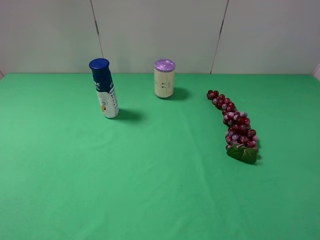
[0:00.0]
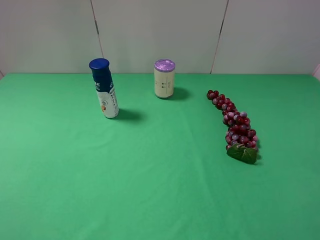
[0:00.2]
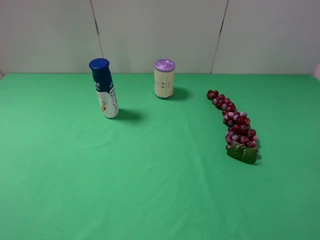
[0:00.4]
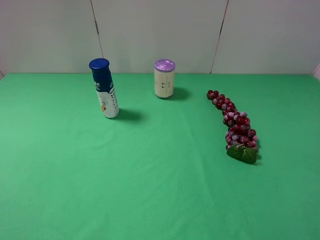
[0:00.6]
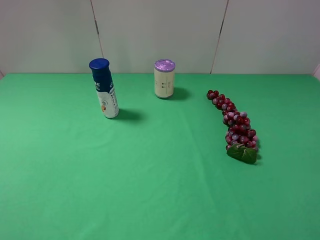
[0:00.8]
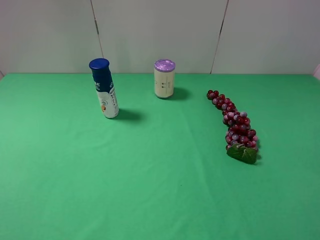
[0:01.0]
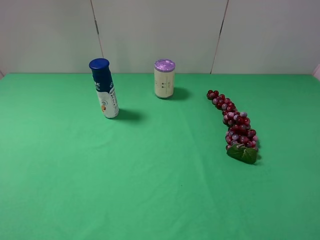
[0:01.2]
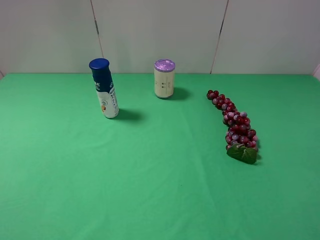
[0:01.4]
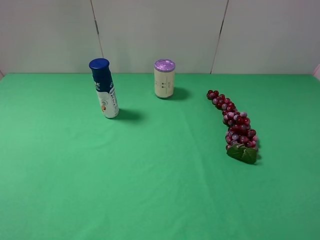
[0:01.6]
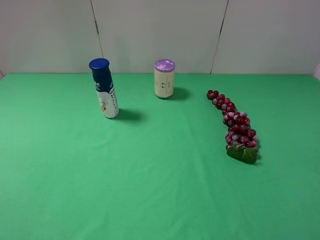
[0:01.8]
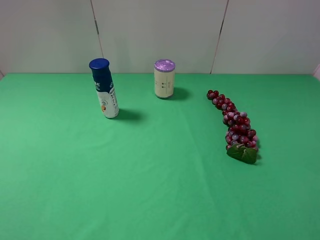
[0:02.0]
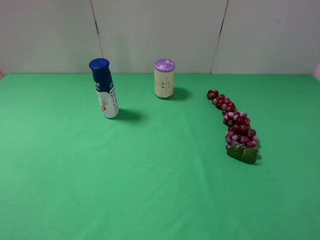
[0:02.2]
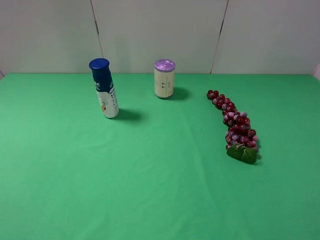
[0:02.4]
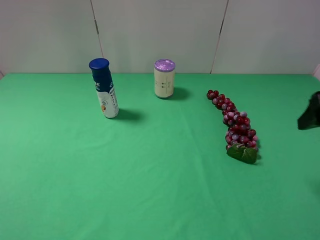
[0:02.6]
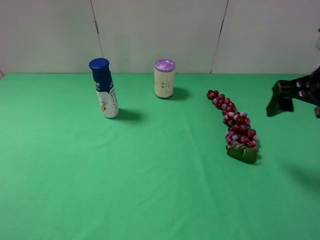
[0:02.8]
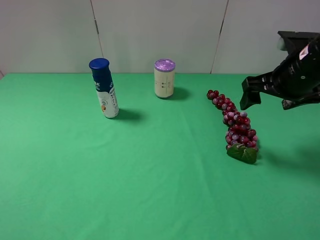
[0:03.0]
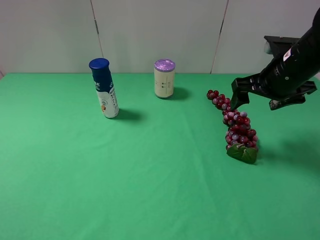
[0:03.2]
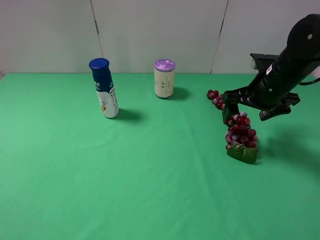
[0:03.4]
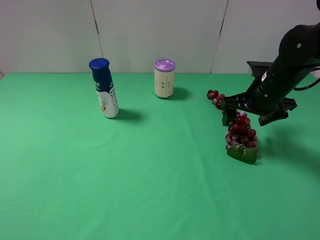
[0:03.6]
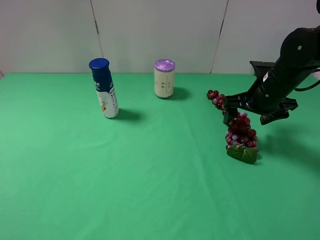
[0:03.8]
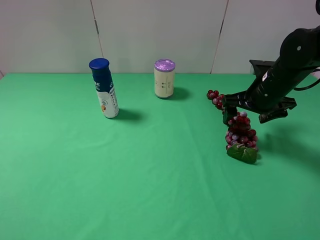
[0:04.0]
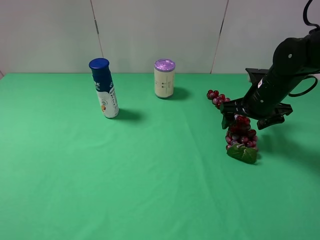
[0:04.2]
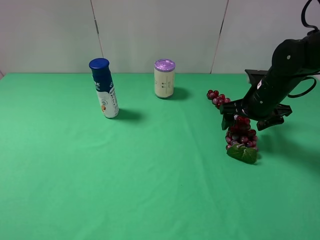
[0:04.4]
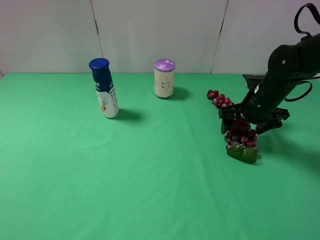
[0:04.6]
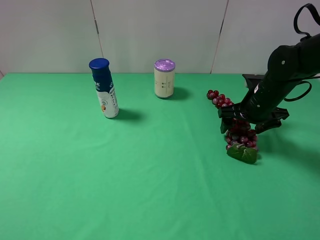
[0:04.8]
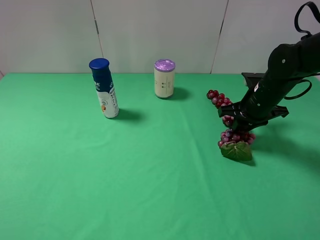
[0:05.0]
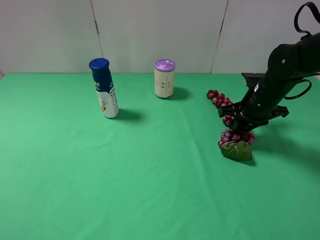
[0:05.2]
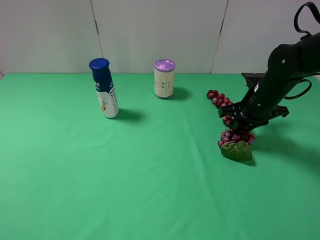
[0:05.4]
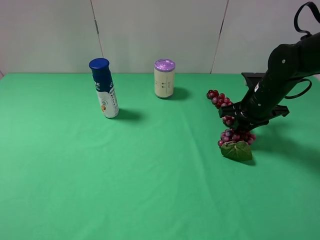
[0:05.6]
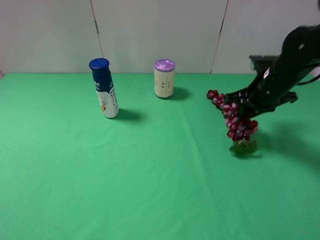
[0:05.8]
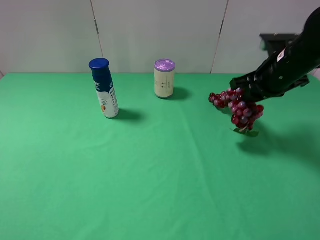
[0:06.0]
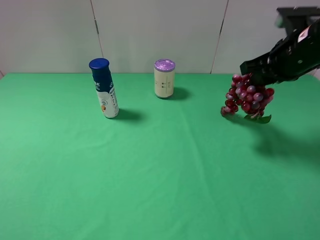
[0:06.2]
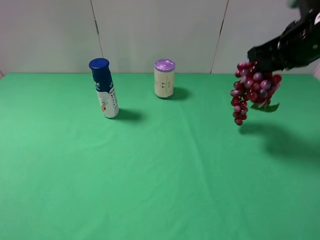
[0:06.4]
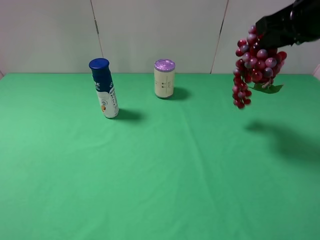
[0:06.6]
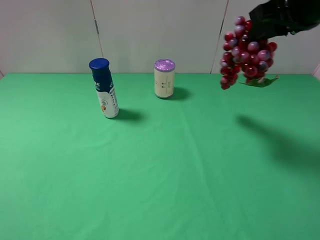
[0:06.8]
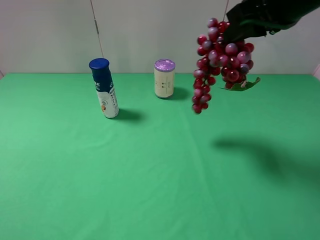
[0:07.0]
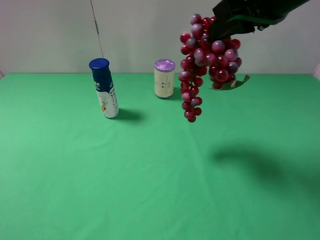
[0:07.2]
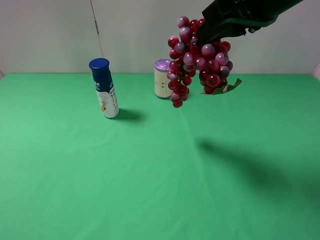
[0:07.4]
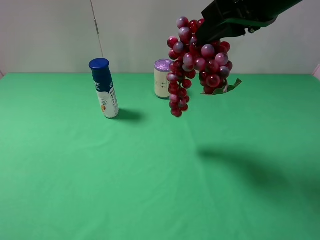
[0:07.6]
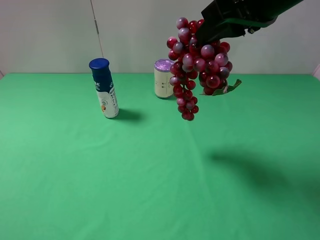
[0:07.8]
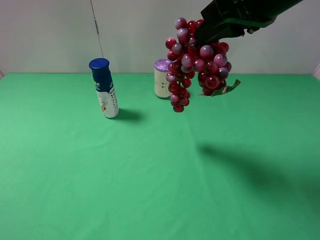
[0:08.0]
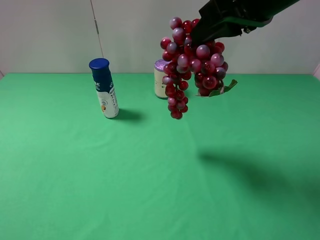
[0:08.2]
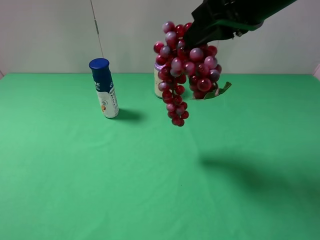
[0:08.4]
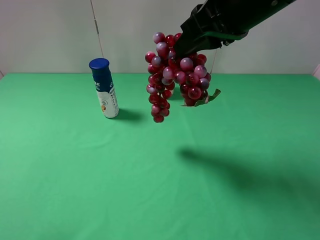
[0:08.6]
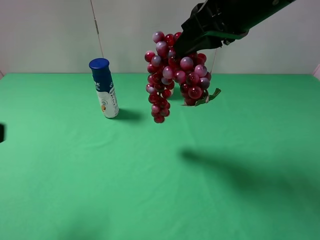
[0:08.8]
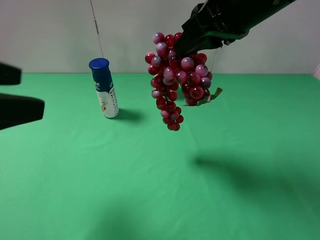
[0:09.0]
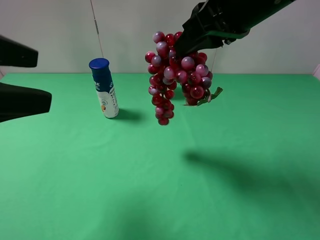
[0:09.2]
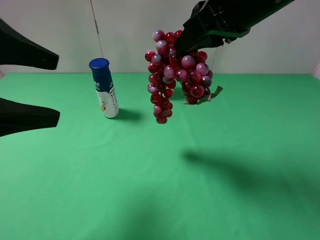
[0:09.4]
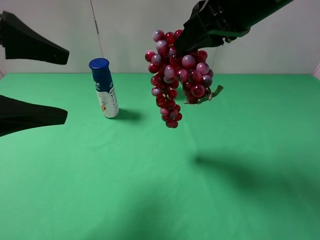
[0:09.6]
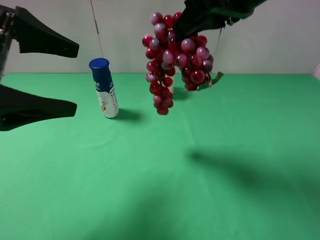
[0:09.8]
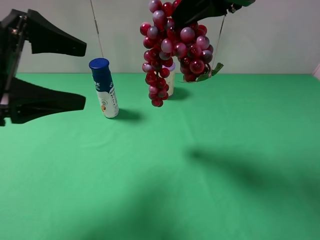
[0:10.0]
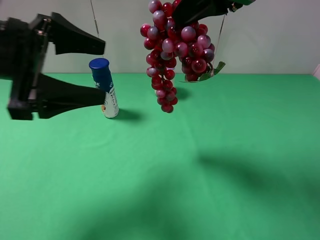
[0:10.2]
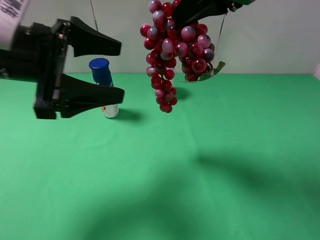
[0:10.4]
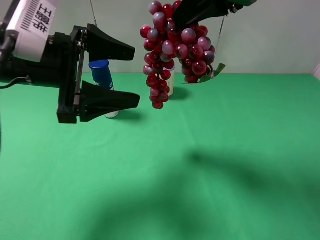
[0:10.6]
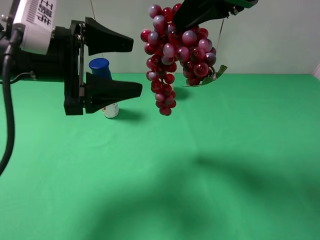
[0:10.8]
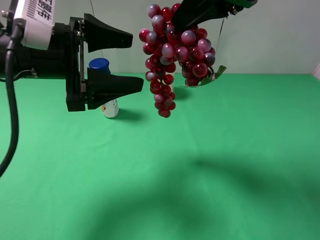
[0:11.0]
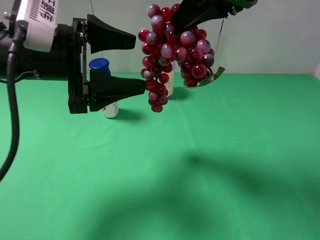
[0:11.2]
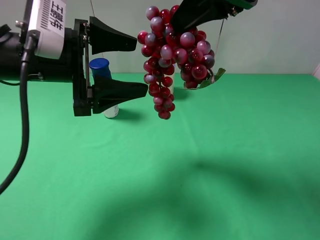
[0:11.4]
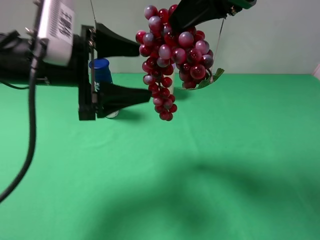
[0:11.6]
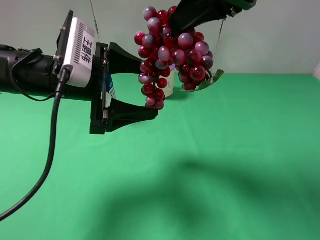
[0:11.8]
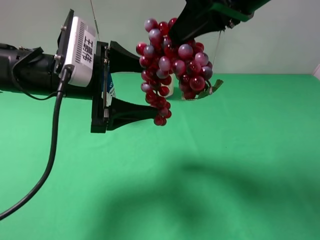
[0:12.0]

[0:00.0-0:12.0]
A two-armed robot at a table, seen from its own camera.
Task of the whole recording: use the right gripper to pick up the item and transfer it from the right gripper to the left gripper.
Step, 0:00.0 to 0:05.2: Use the right gripper to grab the grape on the right side of the table.
0:00.0 to 0:01.6: Both grippers stay put.
0:01.6 to 0:03.0: The right gripper is displaced forward by about 25 cm.
0:03.0 to 0:04.4: The right gripper heads downward, covering roughly 10 cm.
0:04.4 to 0:06.0: The right gripper shifts some 10 cm upward, and closes up.
0:06.0 to 0:07.6: The right gripper moves upward, to the left and backward, roughly 20 cm.
0:07.6 to 0:09.0: The left gripper heads forward and to the right, covering approximately 15 cm.
0:09.0 to 0:10.4: The left gripper goes approximately 15 cm forward, to the right and downward.
0:10.4 to 0:12.0: The left gripper changes place by about 5 cm.

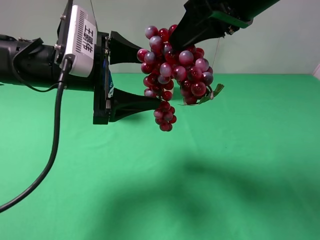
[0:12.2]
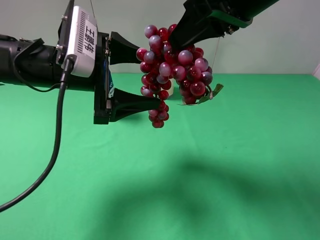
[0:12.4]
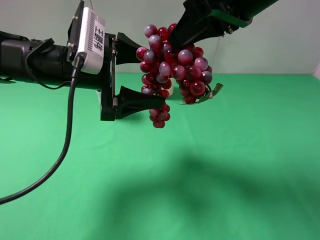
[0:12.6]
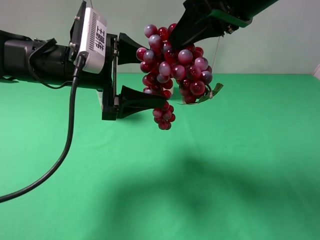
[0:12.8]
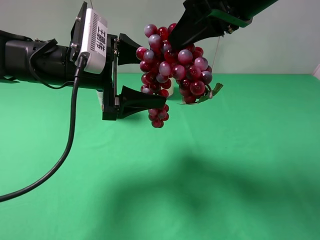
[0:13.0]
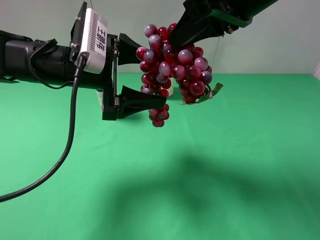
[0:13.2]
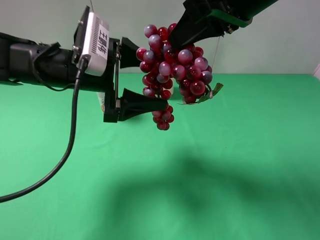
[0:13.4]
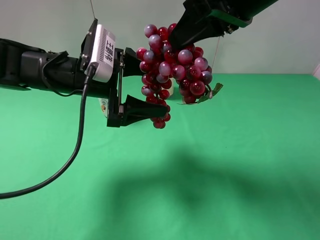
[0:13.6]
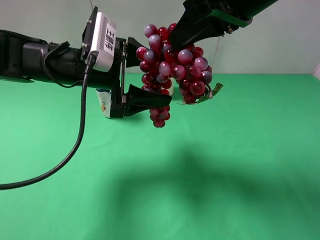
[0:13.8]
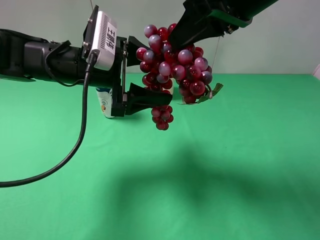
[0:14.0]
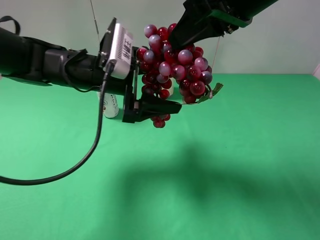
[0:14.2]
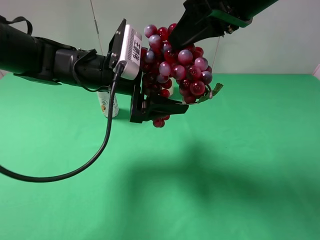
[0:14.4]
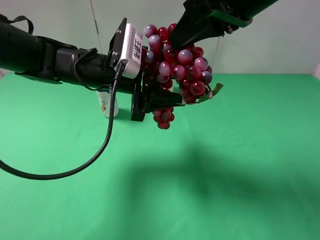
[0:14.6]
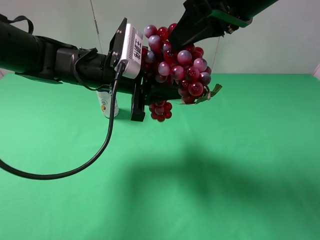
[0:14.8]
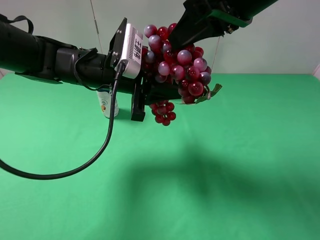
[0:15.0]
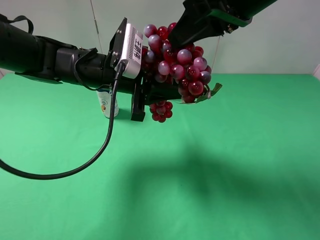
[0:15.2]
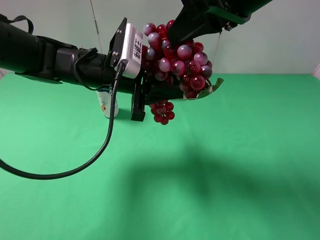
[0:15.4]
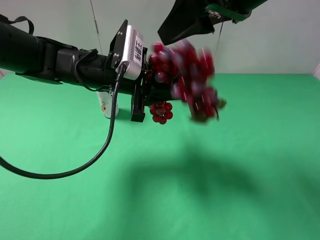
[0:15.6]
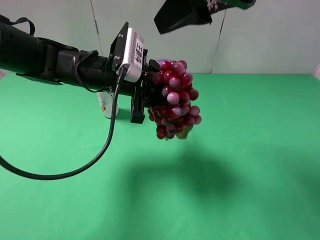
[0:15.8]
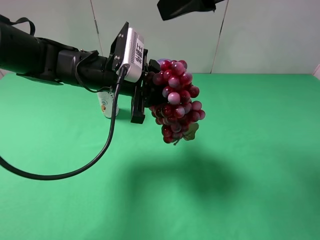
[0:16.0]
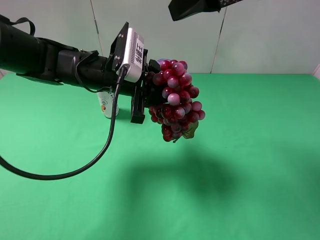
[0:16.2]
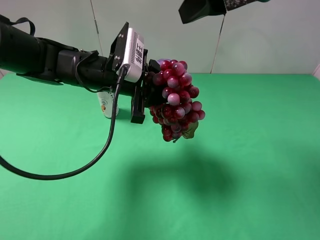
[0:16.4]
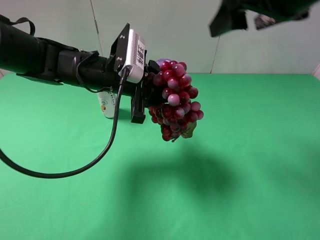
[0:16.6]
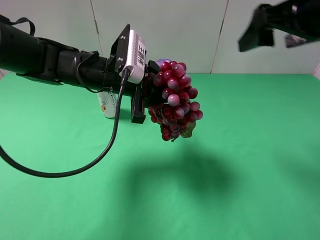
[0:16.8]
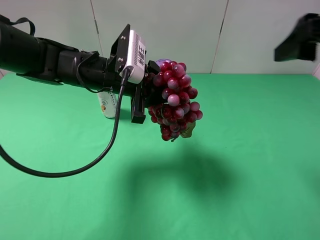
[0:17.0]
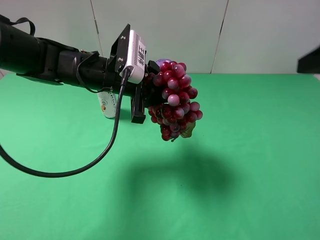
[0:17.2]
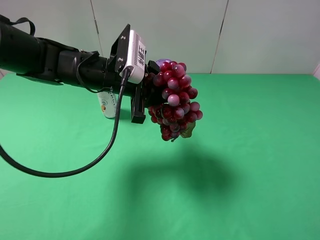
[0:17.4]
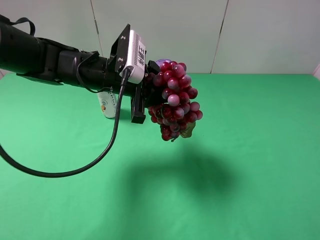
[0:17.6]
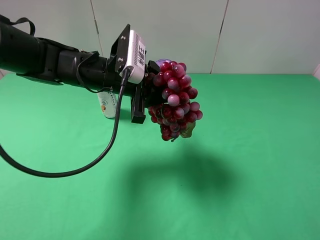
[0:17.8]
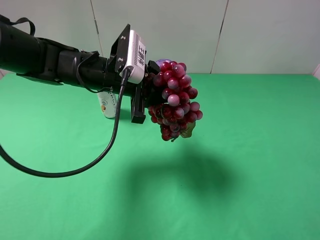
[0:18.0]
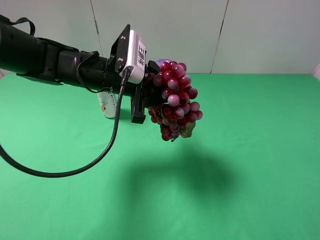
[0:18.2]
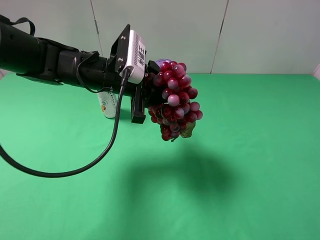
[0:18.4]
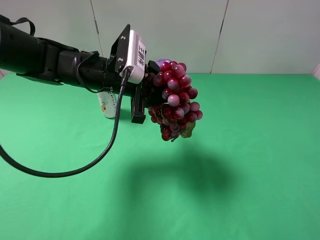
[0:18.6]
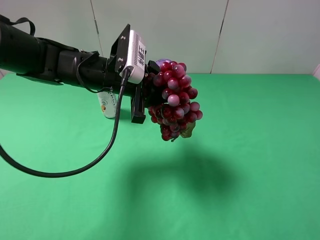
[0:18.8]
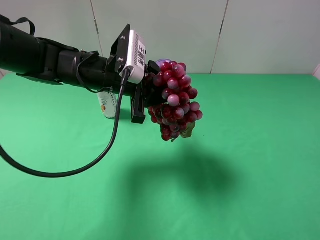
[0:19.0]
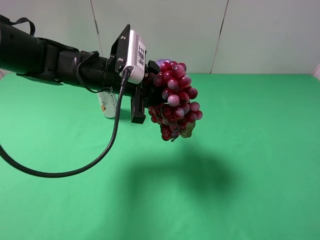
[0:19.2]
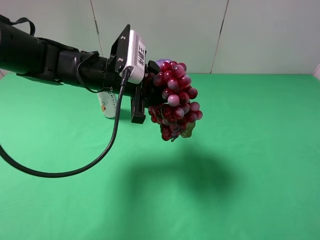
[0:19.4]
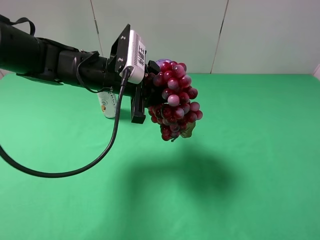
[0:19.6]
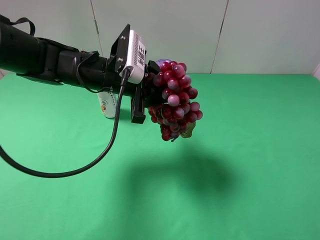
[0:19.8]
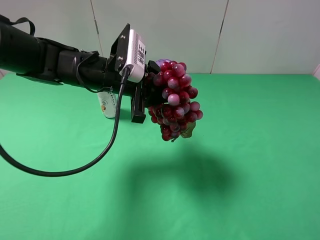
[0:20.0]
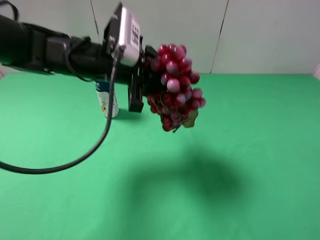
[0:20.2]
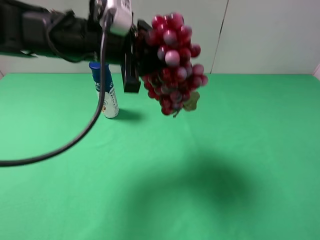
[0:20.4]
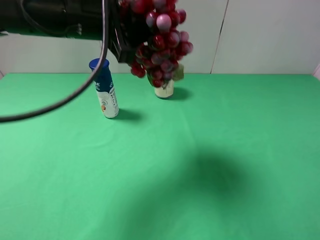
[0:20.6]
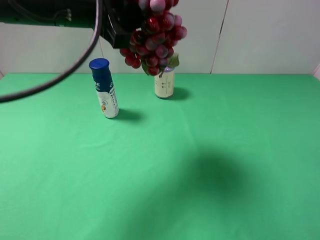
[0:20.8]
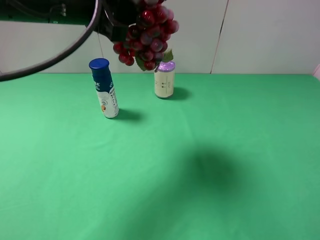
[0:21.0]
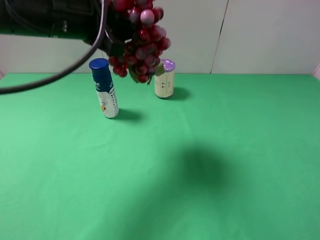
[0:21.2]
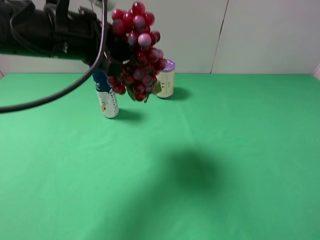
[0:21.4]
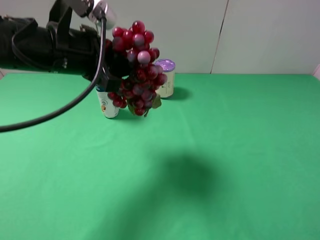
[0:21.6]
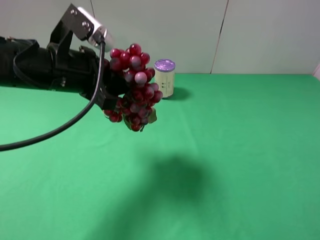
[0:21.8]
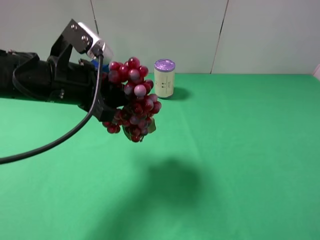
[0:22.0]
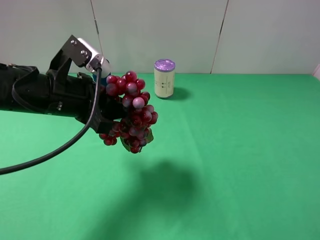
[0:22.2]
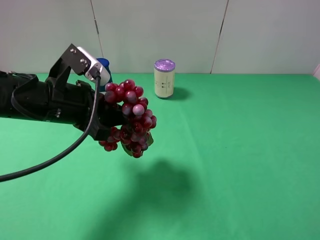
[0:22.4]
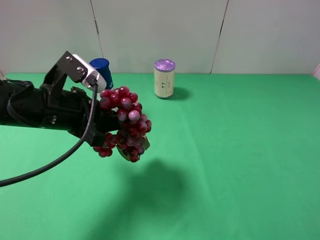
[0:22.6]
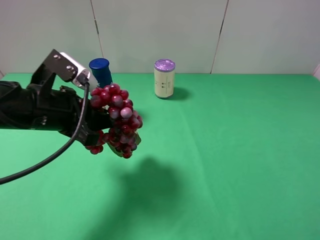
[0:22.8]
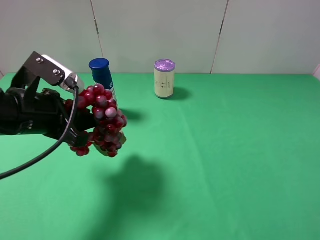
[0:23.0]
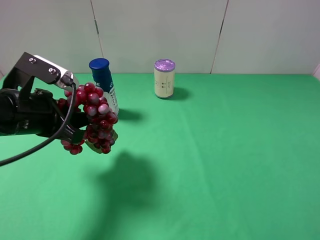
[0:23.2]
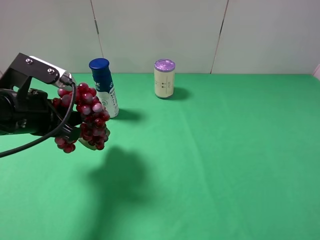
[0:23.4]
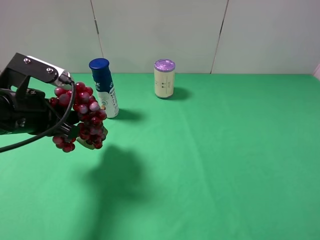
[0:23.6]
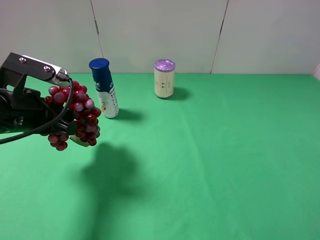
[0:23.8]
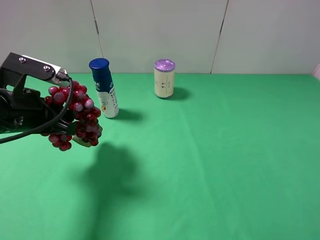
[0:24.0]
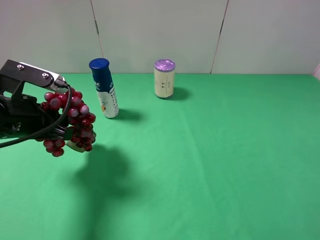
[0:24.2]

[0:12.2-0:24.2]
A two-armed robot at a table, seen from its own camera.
Task of the whole recording: use the right gripper to pick up the item and transfer it from the right gripper to the left gripper.
Step, 0:12.2 to 0:15.6: Pass the grape to the left gripper.
0:12.2 to 0:13.8: The grippers move only a little.
0:13.8 to 0:15.2: The left gripper closes.
0:15.2 to 0:16.6: The right gripper moves to the right, some 5 cm, and opens.
0:16.6 to 0:18.2: The right gripper goes approximately 25 cm backward, to the right and downward.
0:19.8 to 0:21.2: The left gripper heads upward and to the left, covering some 10 cm.
0:21.2 to 0:22.6: The left gripper is displaced downward and backward by some 10 cm.
0:22.6 to 0:24.2: The left gripper goes about 5 cm to the left.
